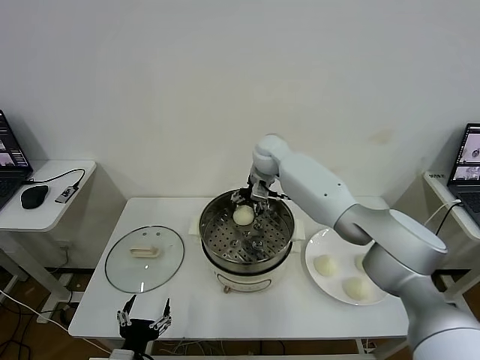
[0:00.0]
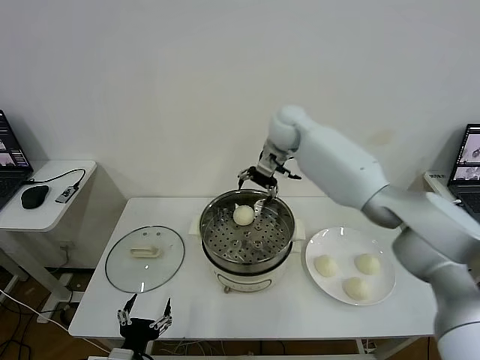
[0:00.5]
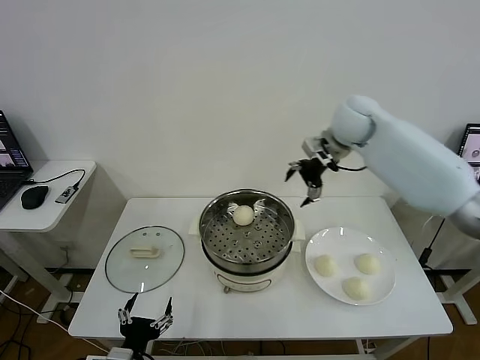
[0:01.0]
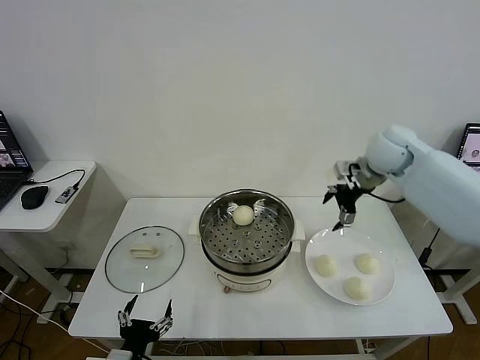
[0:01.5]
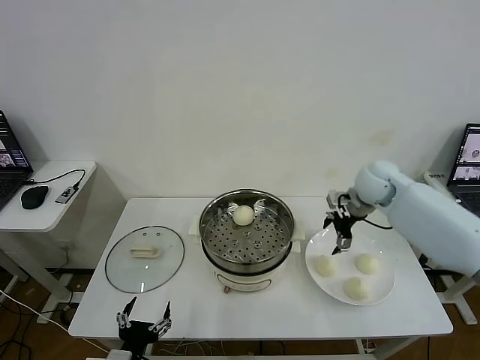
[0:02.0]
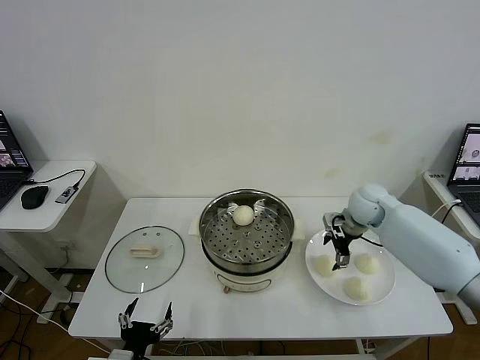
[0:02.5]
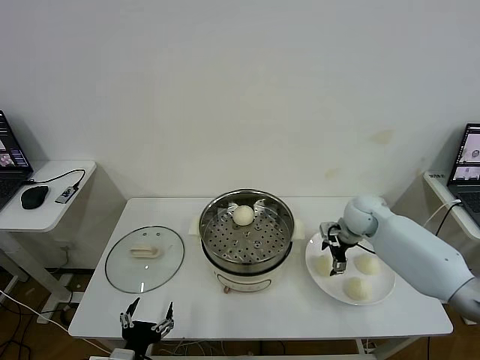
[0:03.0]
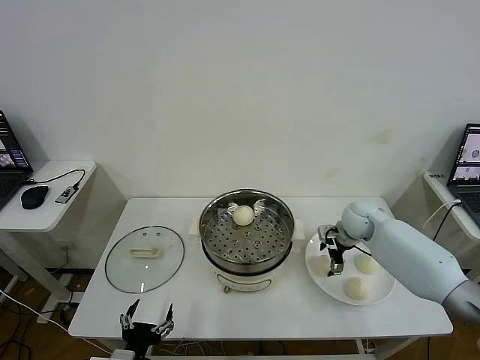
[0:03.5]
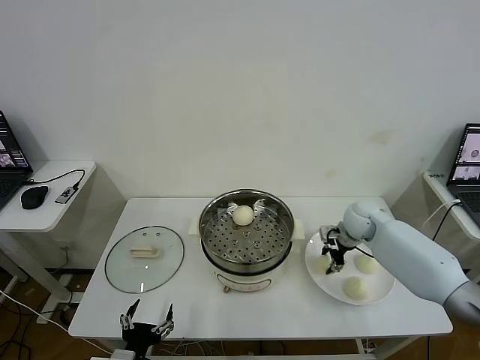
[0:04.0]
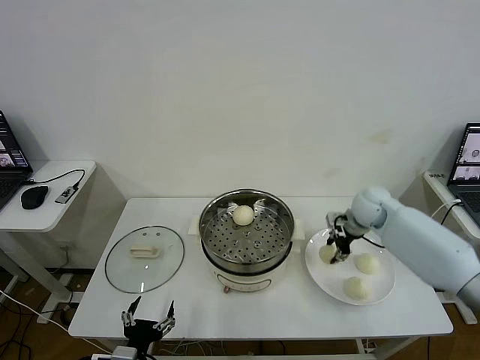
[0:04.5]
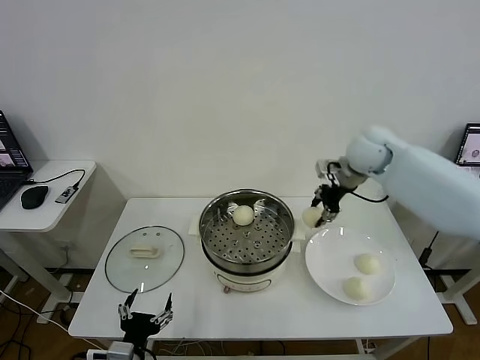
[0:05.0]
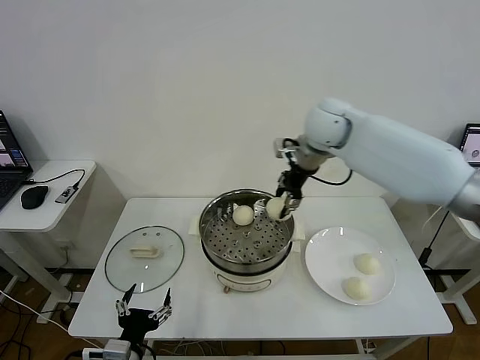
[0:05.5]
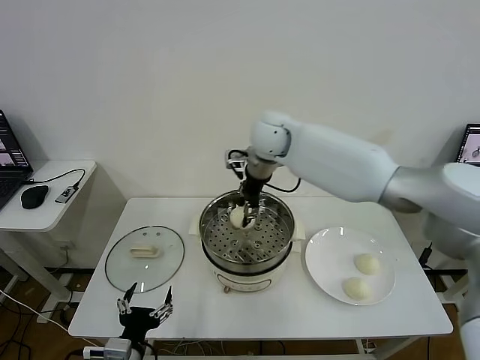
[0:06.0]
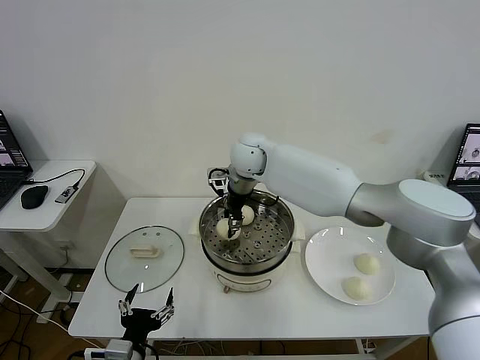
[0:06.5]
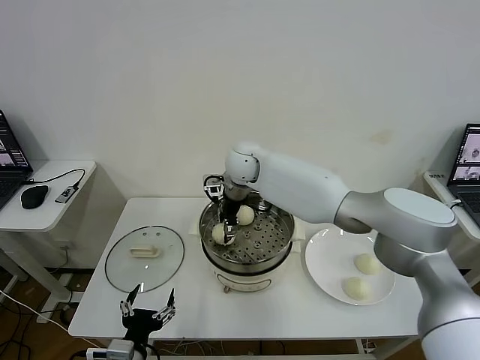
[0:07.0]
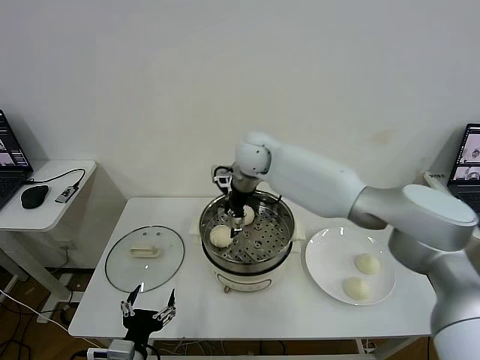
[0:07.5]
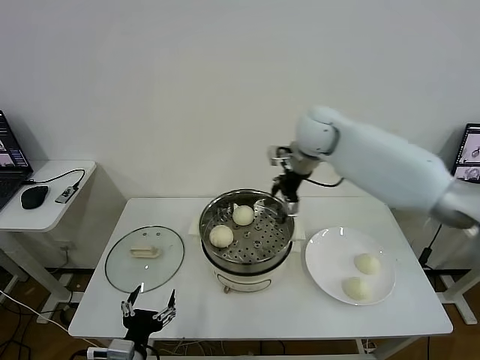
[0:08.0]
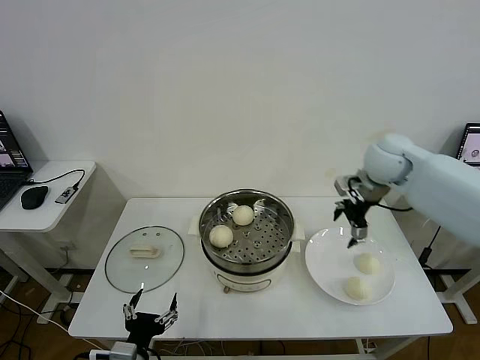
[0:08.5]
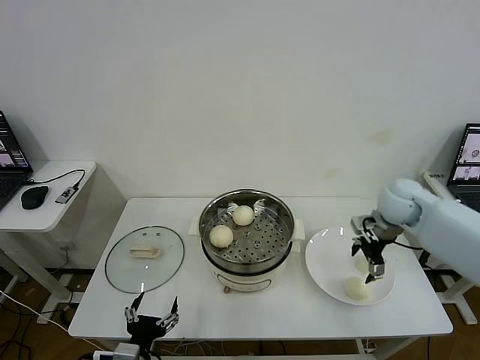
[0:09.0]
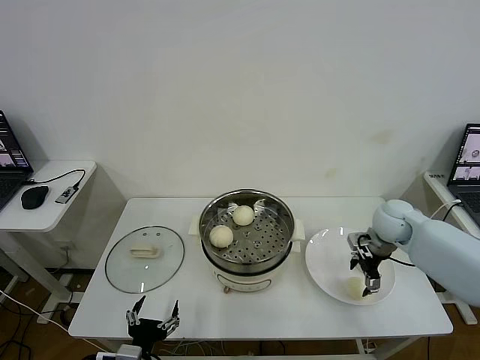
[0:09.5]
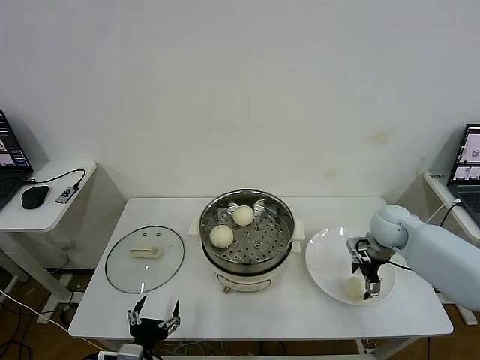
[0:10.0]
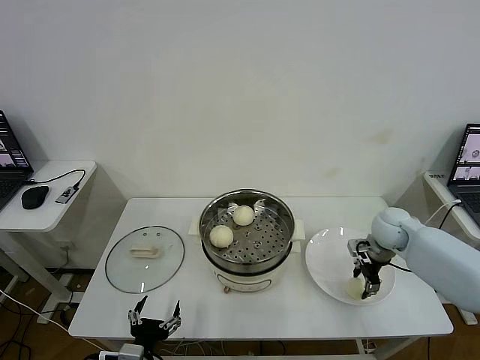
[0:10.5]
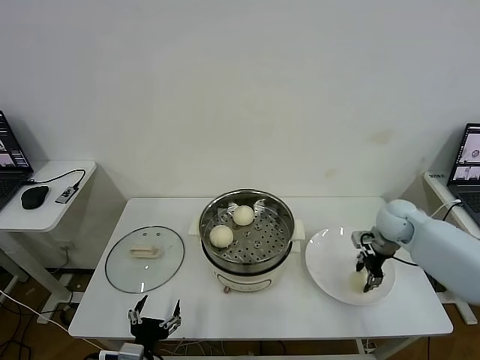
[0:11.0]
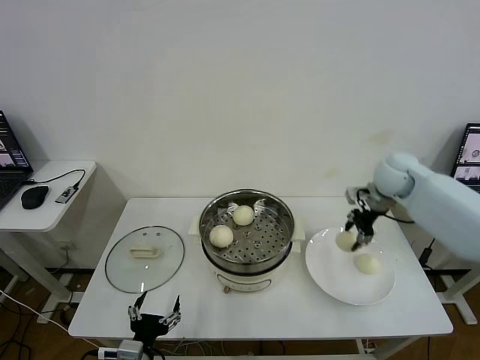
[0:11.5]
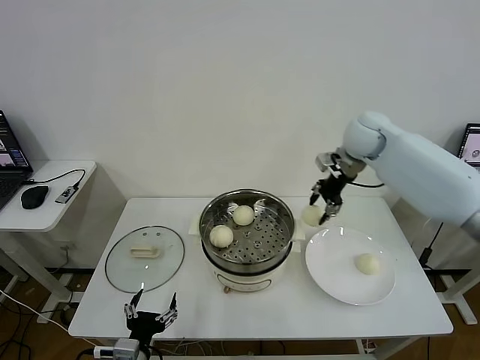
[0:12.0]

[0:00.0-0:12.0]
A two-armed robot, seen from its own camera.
Task of the whole recording: take steamed baozi put them in steamer then cover it.
Step, 0:00.5 to 0:04.0: Grasp the baozi in the plate with right gripper.
Step, 0:04.5 to 0:07.0: Place the baozi on the steamer with right gripper.
Step, 0:07.5 to 0:10.5: Grasp the baozi in the plate with right gripper.
0:00.0 to 0:02.0: The right gripper heads to the right, covering some 25 cm.
0:02.0 to 0:04.0: The right gripper moves downward, some 10 cm, and closes up.
0:04.0 to 0:06.0: The right gripper moves to the left and upward, about 35 cm.
0:06.0 to 0:08.0: The right gripper moves to the right, roughly 10 cm, and opens its fingers.
0:08.0 to 0:10.0: The right gripper is displaced downward, to the right and backward by some 30 cm.
0:10.0 to 0:12.0: The right gripper moves upward, forward and to the left, approximately 25 cm, and closes up.

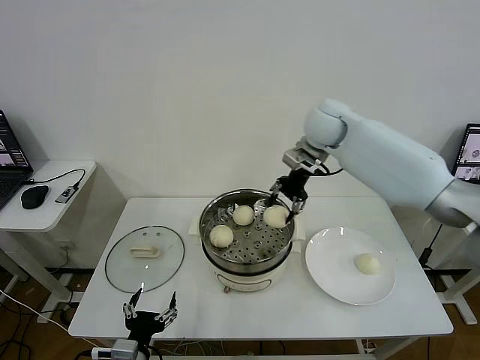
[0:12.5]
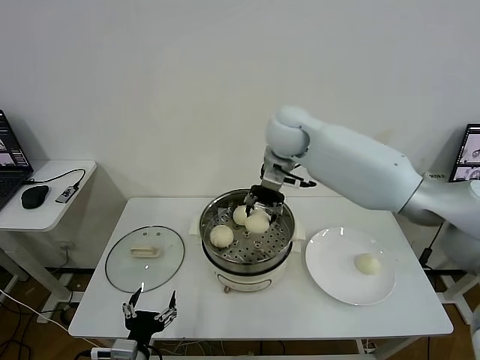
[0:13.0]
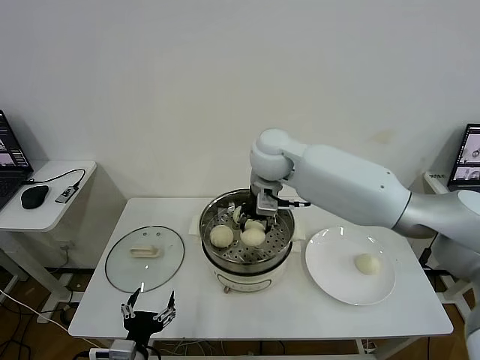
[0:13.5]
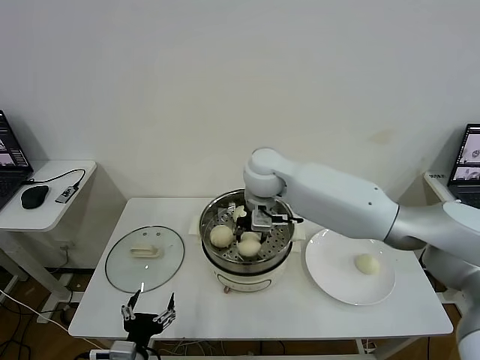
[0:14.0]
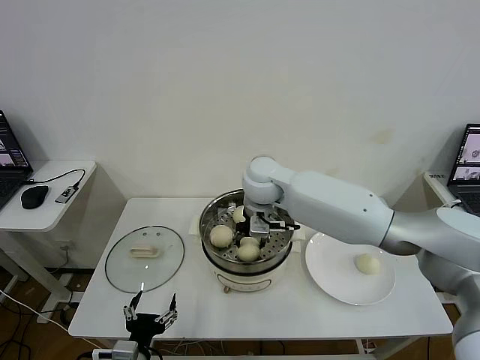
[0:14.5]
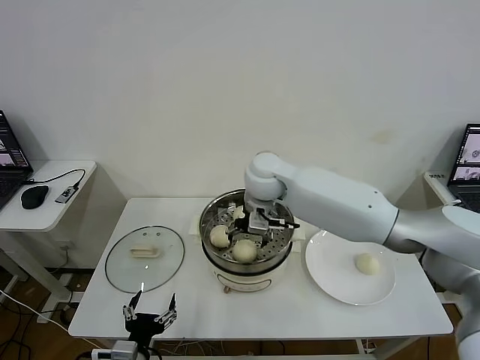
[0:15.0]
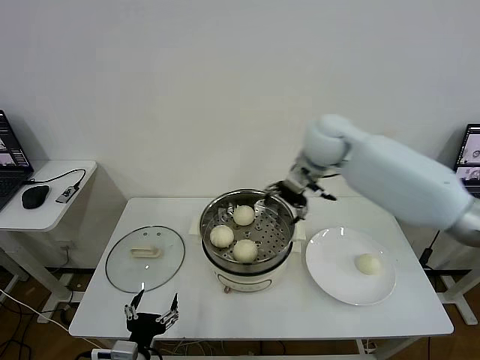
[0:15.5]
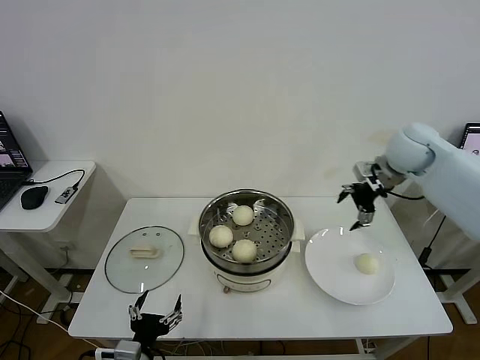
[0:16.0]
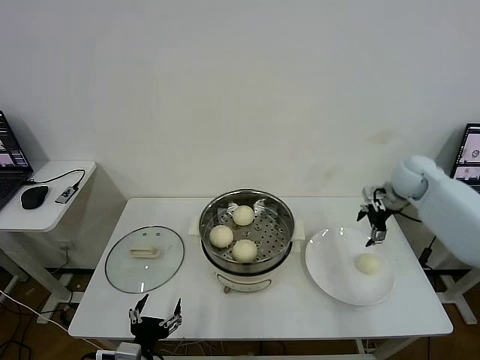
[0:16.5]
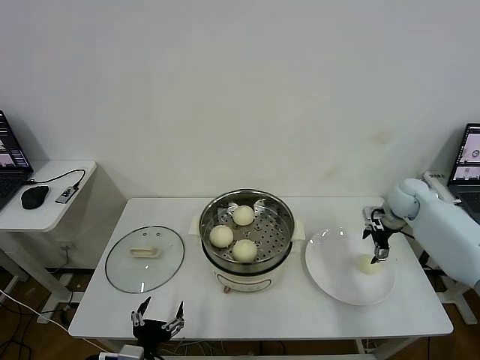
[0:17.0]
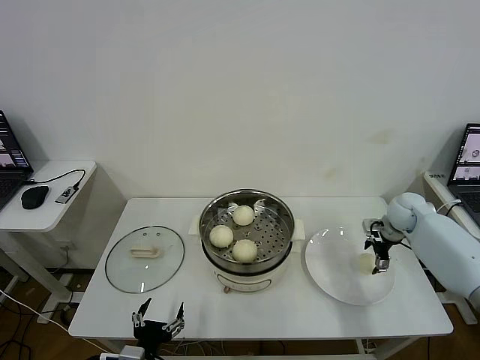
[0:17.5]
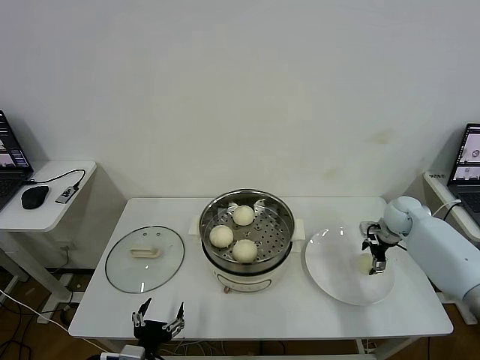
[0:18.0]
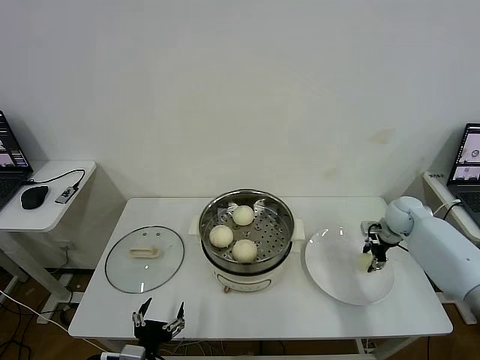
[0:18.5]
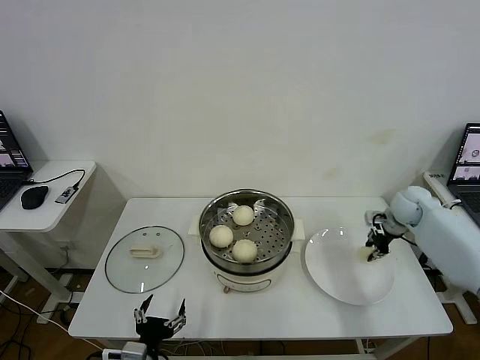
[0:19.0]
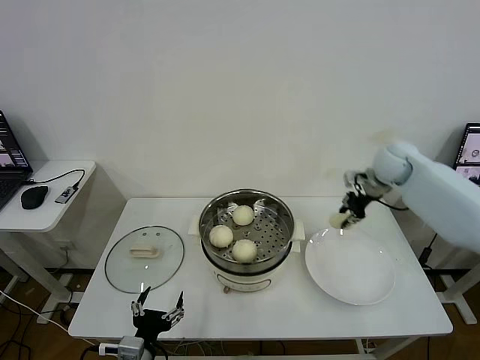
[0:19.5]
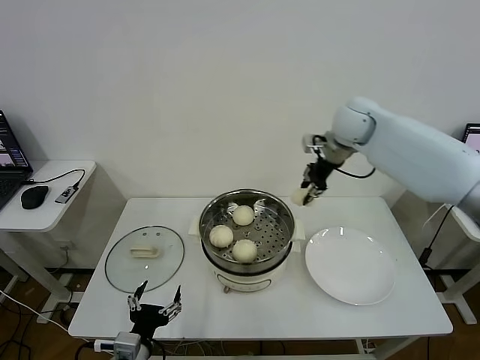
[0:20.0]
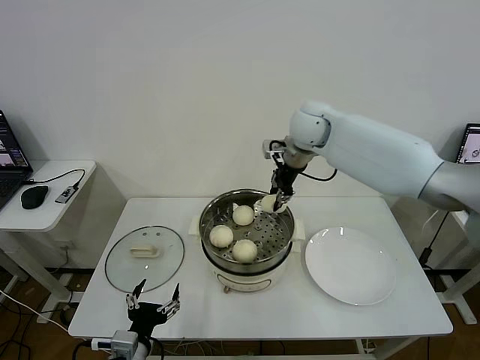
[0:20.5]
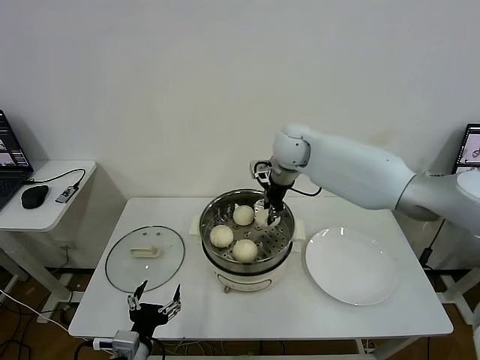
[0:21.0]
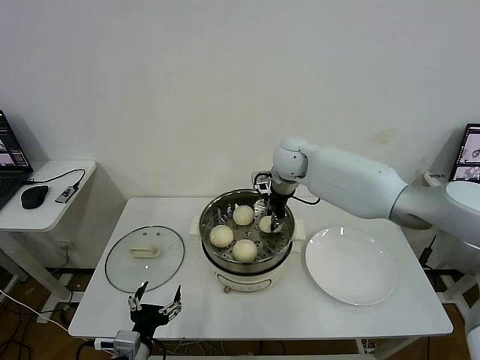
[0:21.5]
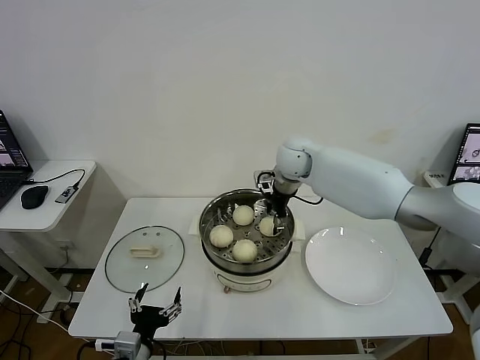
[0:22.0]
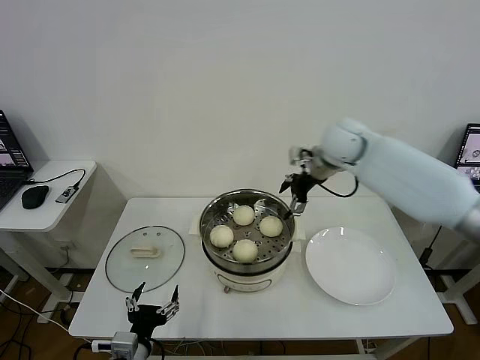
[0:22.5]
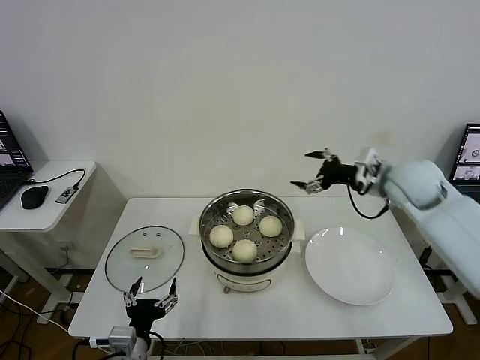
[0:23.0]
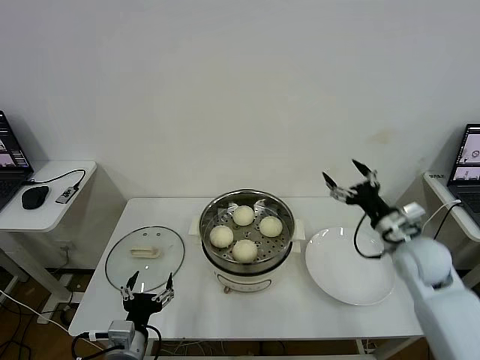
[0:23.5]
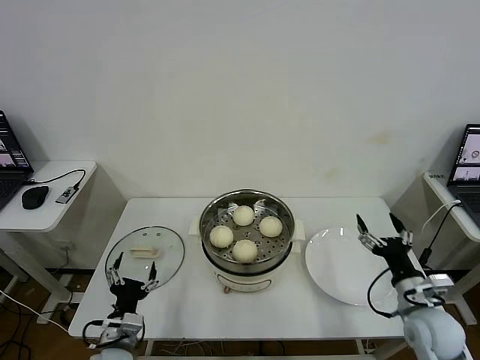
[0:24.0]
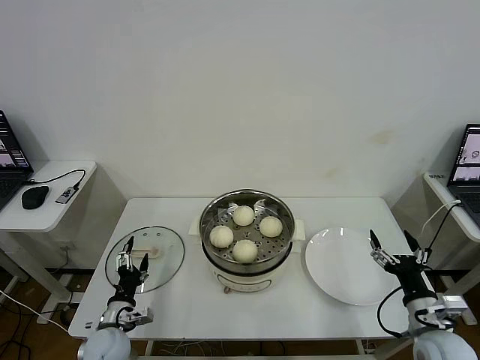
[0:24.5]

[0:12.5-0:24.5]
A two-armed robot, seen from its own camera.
Task of the whole recording: take steamed baozi put them in steamer then cover it.
Step, 0:12.5 to 0:15.0: Place the baozi on the steamer with right gripper.
Step, 0:15.5 to 0:18.5: Grasp the baozi in the plate with right gripper.
Step, 0:19.0 to 0:22.0: Place the baozi on the steamer with right gripper.
0:12.5 to 0:14.5: The right gripper goes roughly 20 cm to the left, downward and backward.
0:14.5 to 0:16.5: The right gripper travels to the right by about 35 cm, and opens its fingers.
0:16.5 to 0:18.5: The right gripper moves downward, some 10 cm, and closes up.
0:18.5 to 0:20.5: The right gripper heads to the left and upward, covering about 35 cm, and closes up.
0:20.5 to 0:22.5: The right gripper moves to the right, some 5 cm, and opens.
0:22.5 to 0:24.5: The left gripper moves forward, downward and to the left, about 15 cm. The right gripper shifts roughly 50 cm backward, downward and to the right.

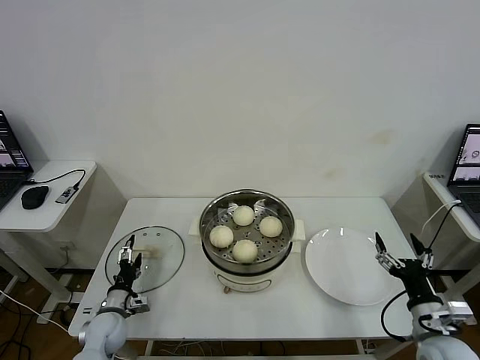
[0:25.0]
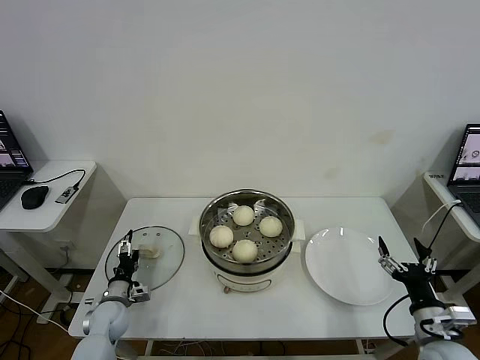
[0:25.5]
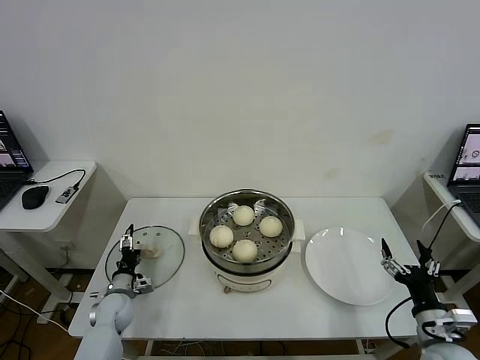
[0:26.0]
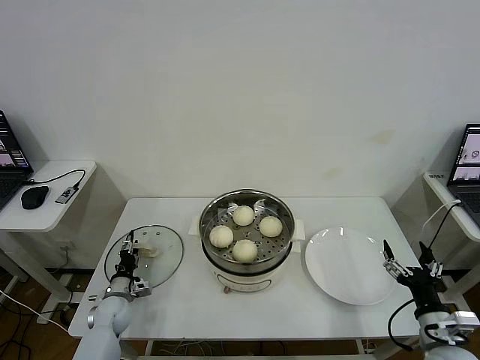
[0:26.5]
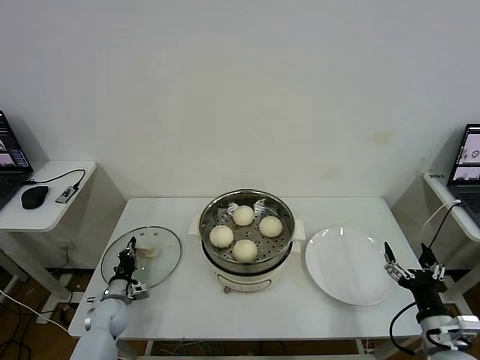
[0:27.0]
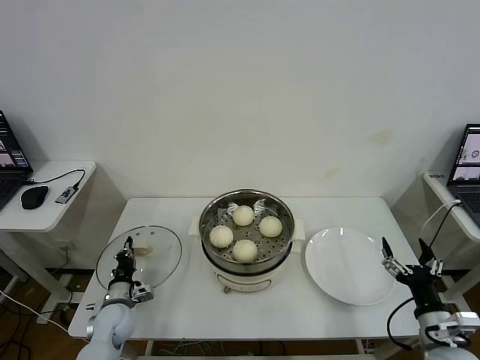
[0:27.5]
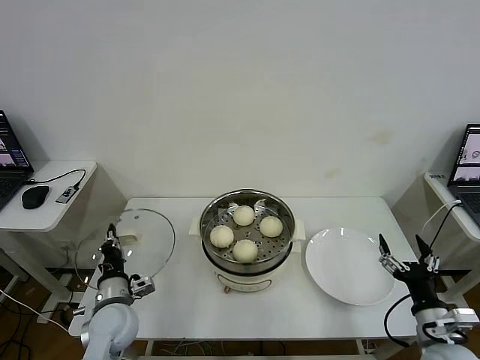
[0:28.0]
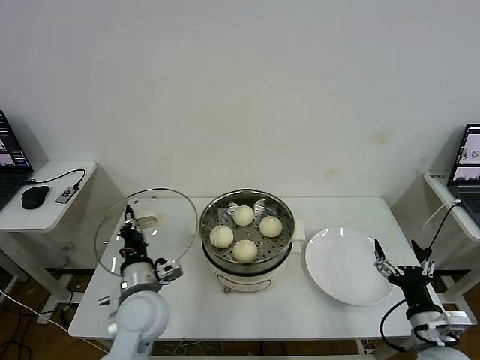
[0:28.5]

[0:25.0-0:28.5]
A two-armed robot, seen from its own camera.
Task of the whole recording: take steamed baozi put them in steamer then cover it.
Step, 0:25.0 to 0:27.0: Grasp the pot lid with left gripper.
0:25.0 to 0:27.0: The left gripper moves forward, roughly 5 cm, and closes up.
0:27.0 to 0:28.5: The left gripper moves upward and to the right, approximately 25 cm.
